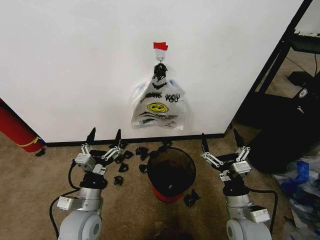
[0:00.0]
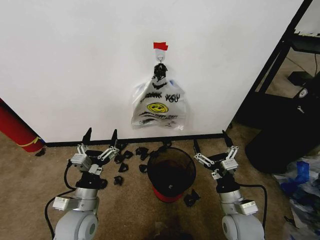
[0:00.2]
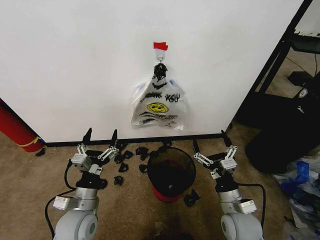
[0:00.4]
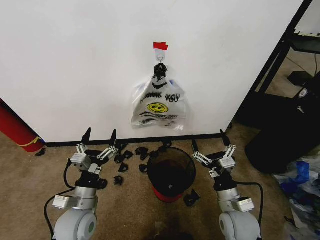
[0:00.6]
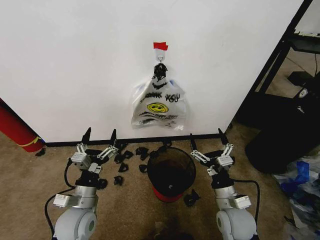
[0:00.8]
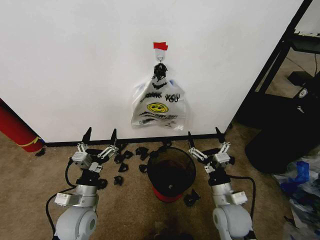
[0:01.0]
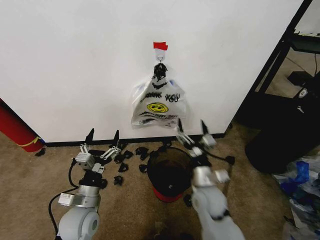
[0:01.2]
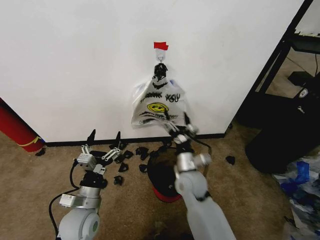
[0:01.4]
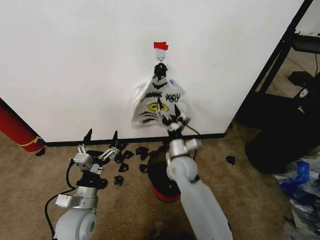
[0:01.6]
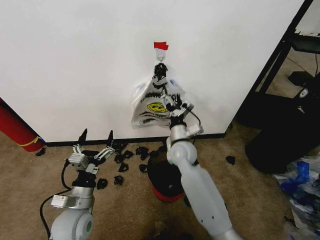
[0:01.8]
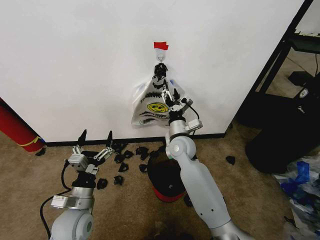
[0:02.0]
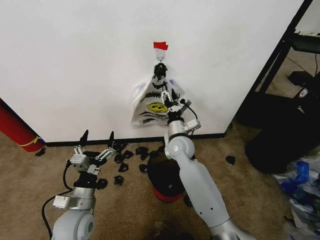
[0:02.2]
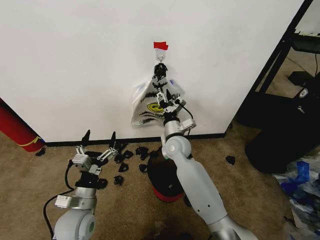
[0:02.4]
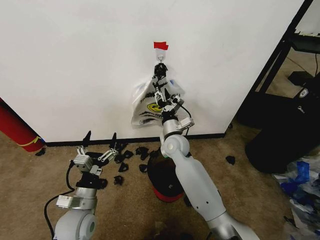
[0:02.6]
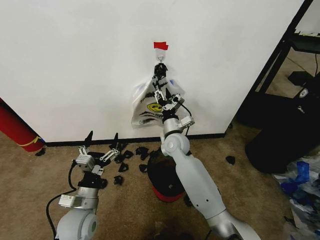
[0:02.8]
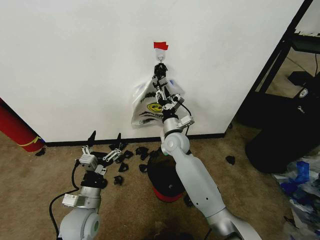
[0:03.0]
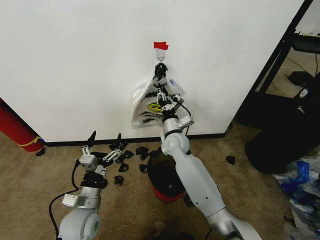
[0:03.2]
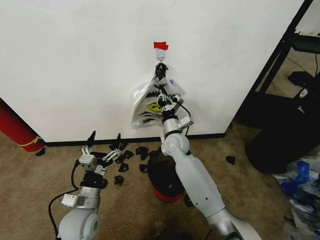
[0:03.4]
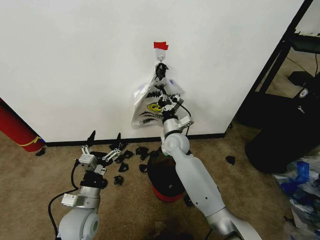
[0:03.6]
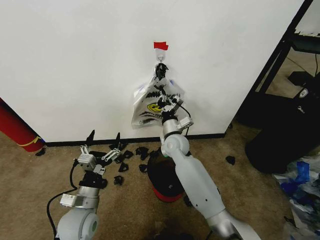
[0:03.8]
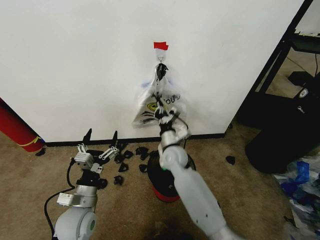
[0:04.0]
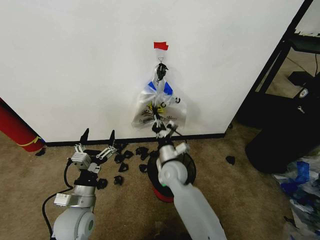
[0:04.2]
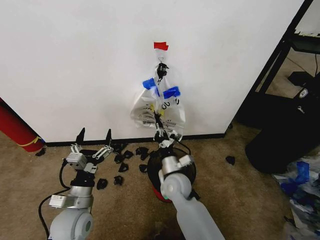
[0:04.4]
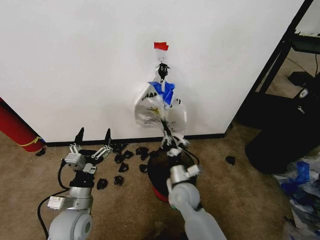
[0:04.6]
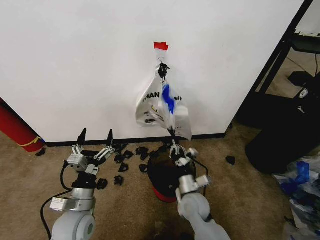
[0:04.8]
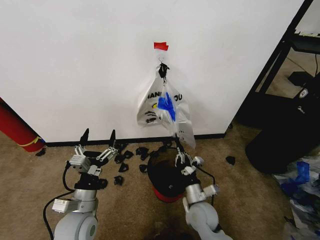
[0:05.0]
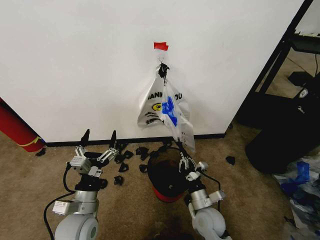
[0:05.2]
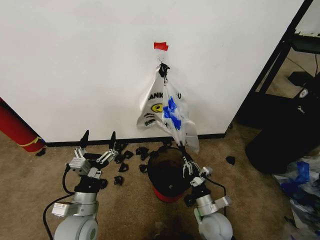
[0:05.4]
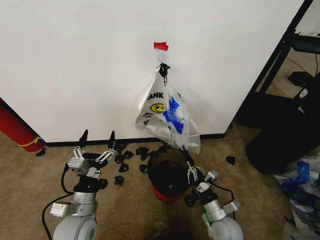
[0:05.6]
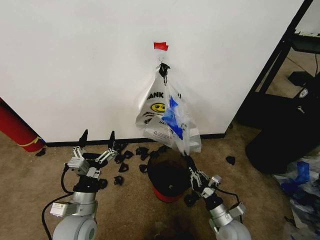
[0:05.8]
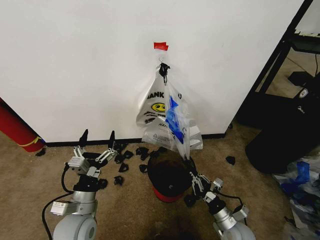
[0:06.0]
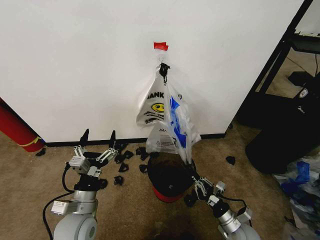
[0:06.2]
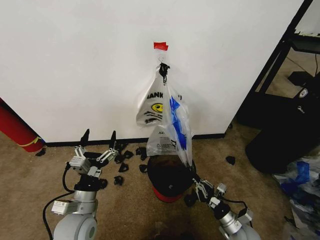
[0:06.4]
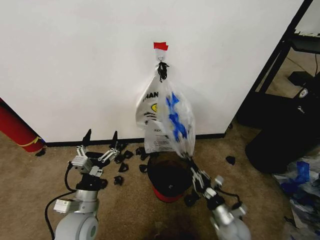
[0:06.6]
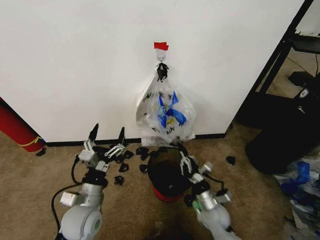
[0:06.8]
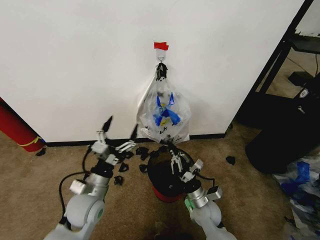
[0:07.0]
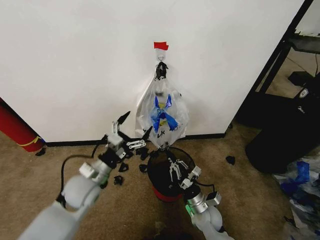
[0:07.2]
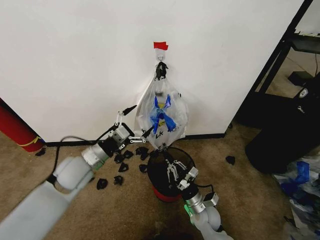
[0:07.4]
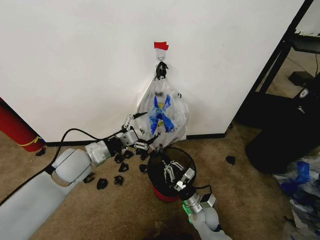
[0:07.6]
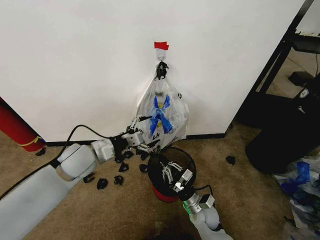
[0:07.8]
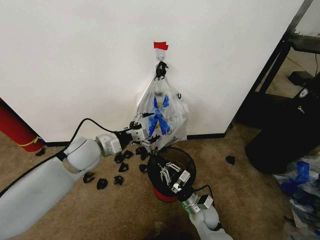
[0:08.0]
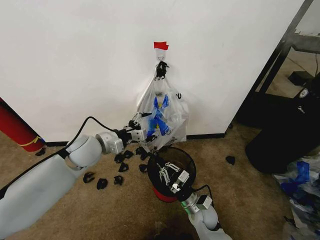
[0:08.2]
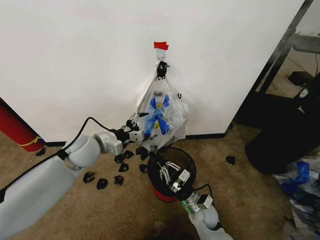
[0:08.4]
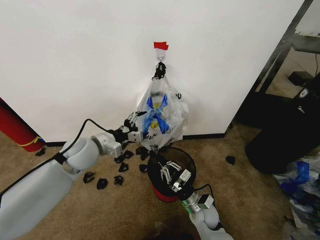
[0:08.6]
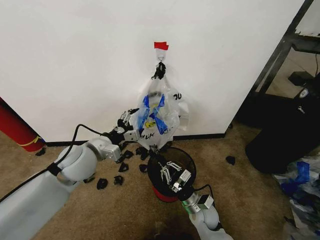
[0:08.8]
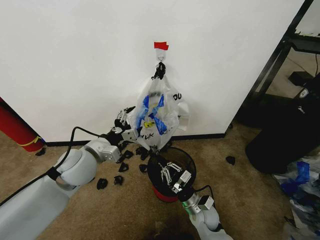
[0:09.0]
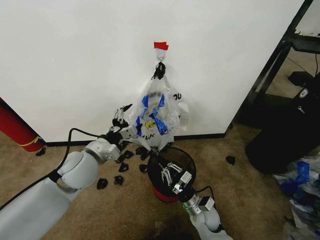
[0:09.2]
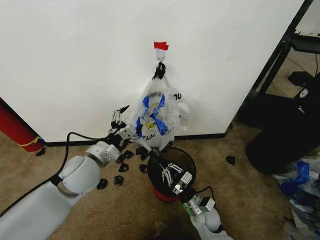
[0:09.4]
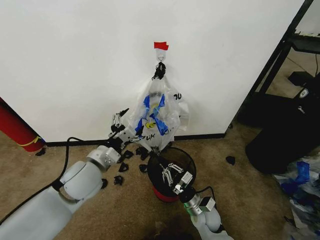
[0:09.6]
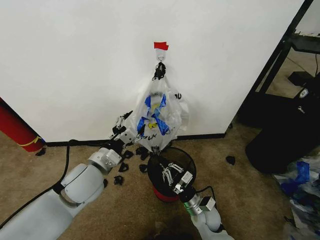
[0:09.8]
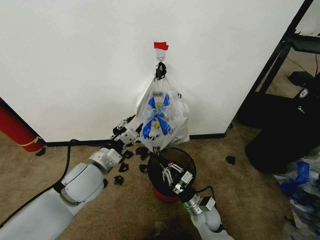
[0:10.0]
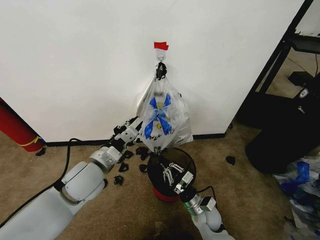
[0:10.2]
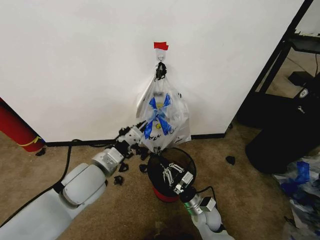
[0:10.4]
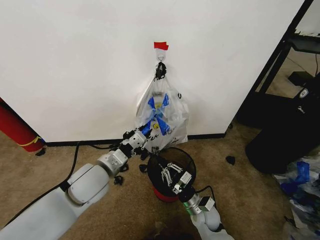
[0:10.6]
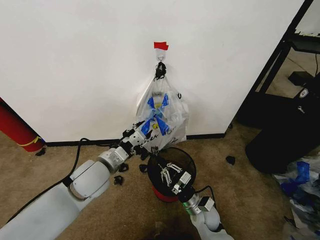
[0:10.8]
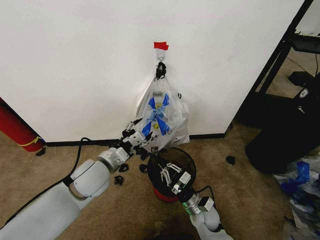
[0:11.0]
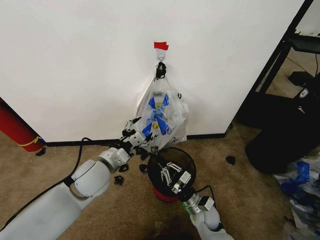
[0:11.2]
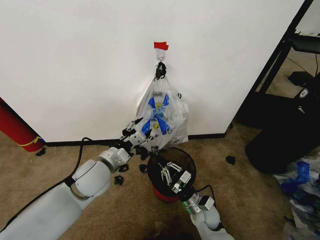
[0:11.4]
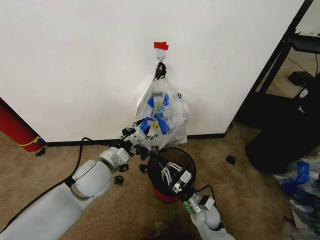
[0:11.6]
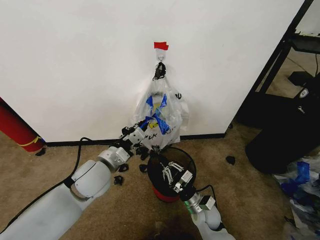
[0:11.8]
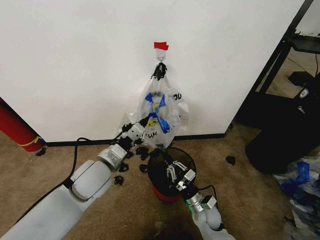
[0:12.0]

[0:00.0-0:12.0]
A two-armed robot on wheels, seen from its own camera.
Task of the whole recording: Pick up the garbage bag from the wall and place it over the trash bin.
0:01.6 to 0:03.0: The right gripper goes approximately 10 cm forward, and closes.
0:03.0 to 0:04.4: The right gripper travels backward and downward by approximately 15 cm, and closes.
0:04.4 to 0:06.0: The right gripper moves to the right, backward and downward, approximately 30 cm.
0:06.0 to 0:07.6: The left gripper shifts about 15 cm forward and upward. Meanwhile the right gripper heads to the left and forward, covering roughly 10 cm.
0:09.0 to 0:10.4: The left gripper ends up about 5 cm from where it was, and closes.
0:10.4 to 0:12.0: The left gripper opens, then closes again.

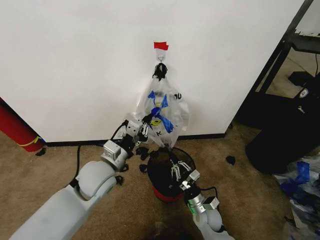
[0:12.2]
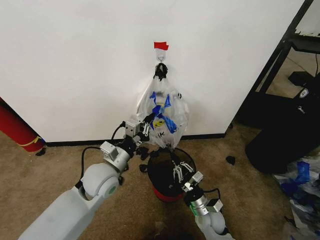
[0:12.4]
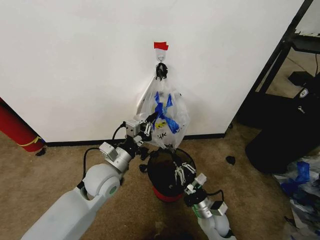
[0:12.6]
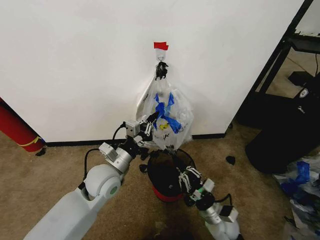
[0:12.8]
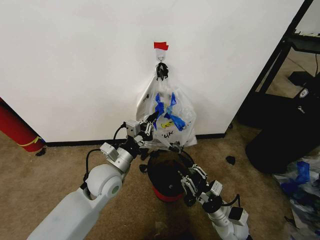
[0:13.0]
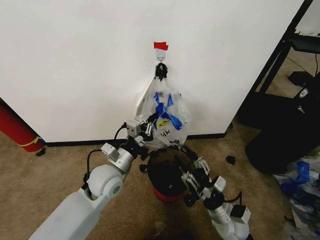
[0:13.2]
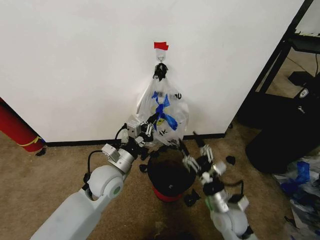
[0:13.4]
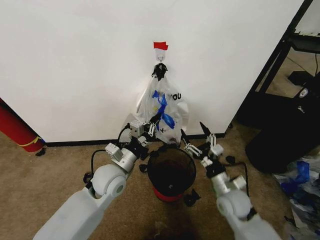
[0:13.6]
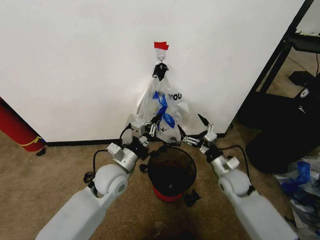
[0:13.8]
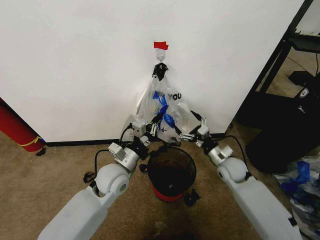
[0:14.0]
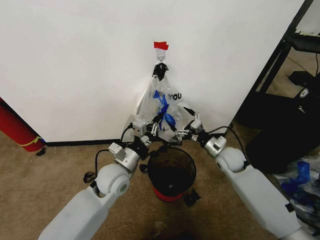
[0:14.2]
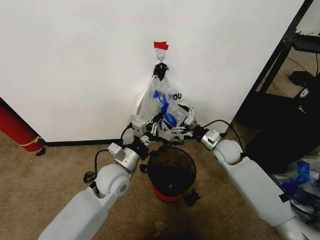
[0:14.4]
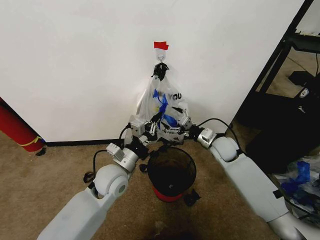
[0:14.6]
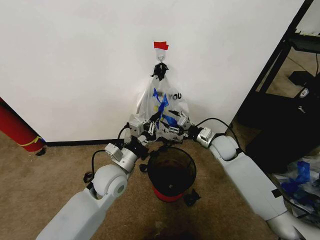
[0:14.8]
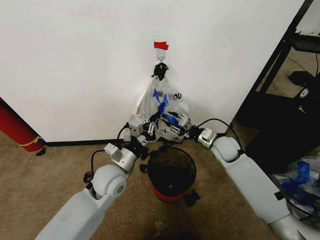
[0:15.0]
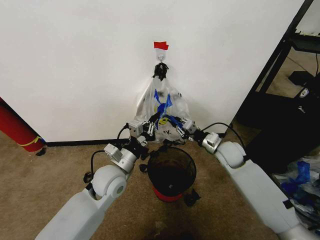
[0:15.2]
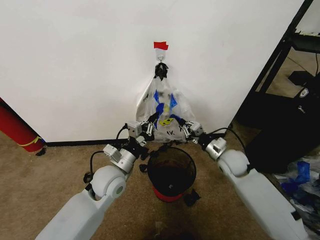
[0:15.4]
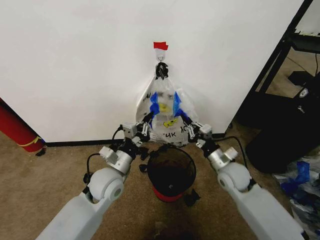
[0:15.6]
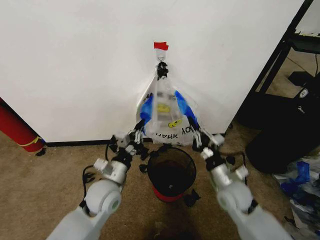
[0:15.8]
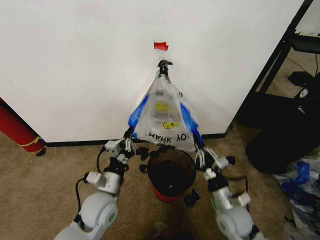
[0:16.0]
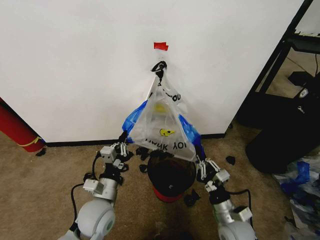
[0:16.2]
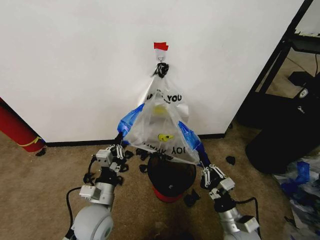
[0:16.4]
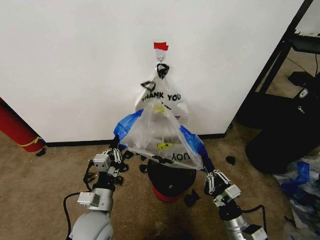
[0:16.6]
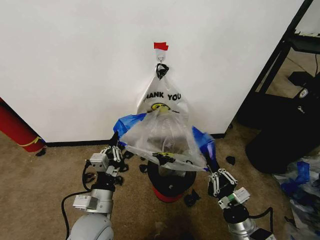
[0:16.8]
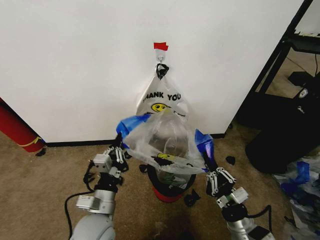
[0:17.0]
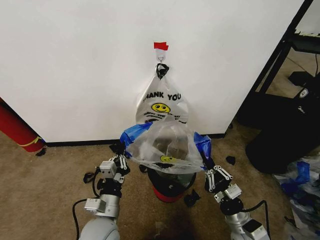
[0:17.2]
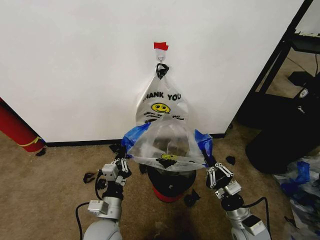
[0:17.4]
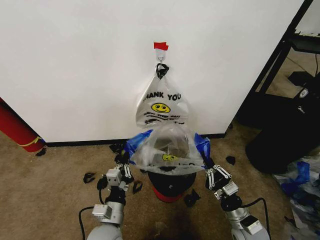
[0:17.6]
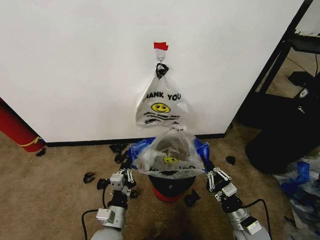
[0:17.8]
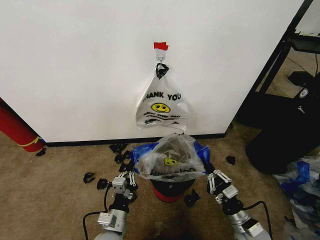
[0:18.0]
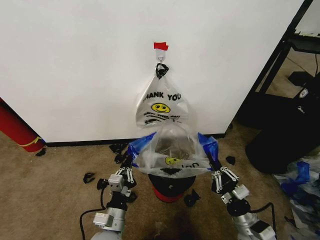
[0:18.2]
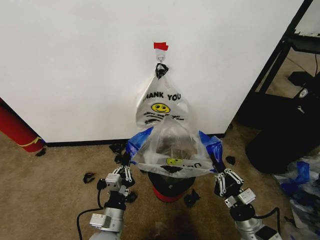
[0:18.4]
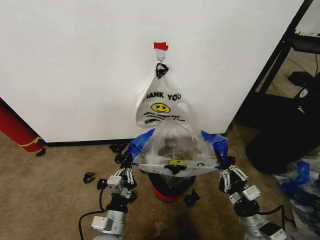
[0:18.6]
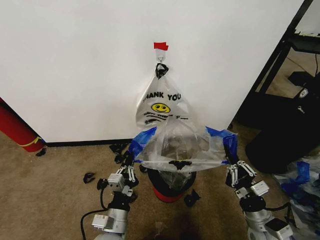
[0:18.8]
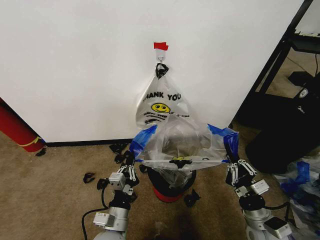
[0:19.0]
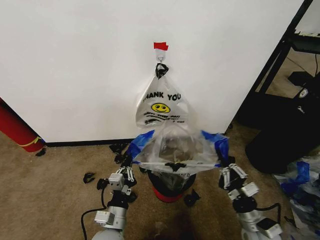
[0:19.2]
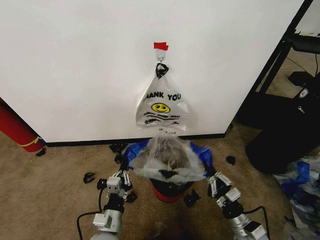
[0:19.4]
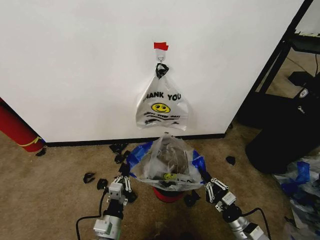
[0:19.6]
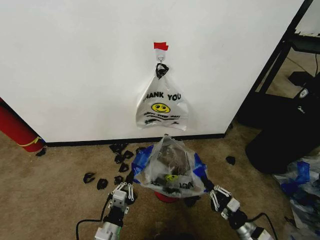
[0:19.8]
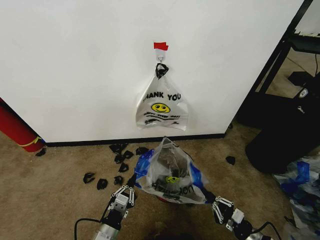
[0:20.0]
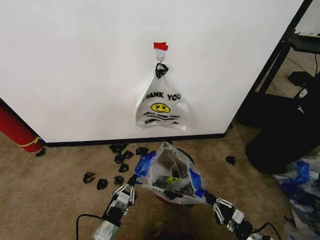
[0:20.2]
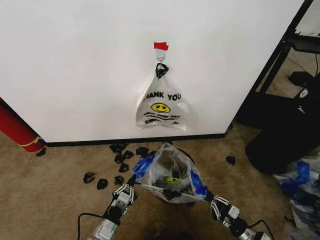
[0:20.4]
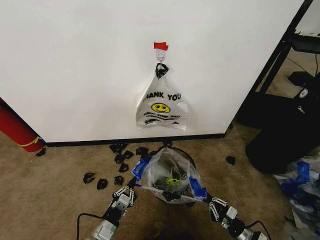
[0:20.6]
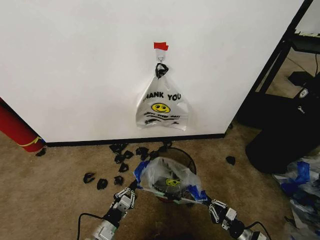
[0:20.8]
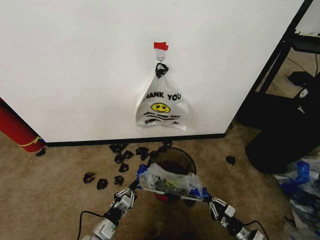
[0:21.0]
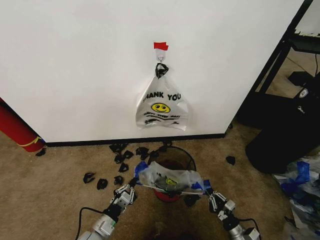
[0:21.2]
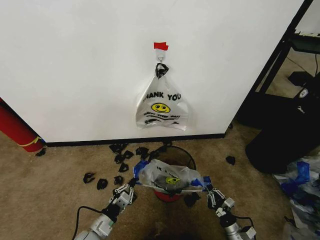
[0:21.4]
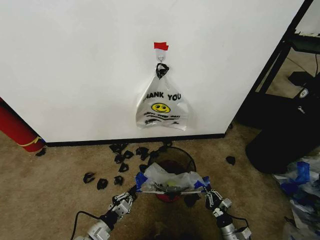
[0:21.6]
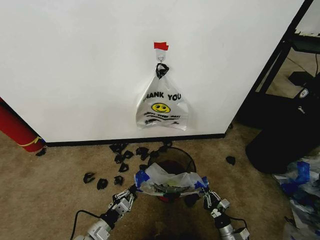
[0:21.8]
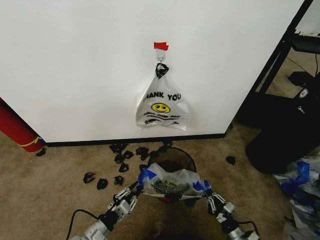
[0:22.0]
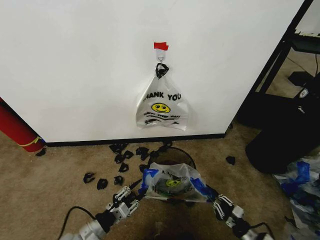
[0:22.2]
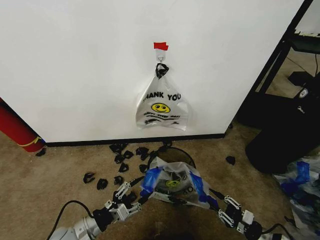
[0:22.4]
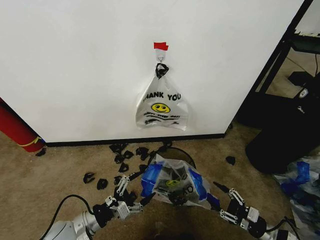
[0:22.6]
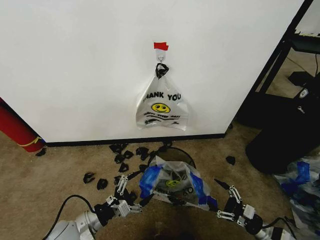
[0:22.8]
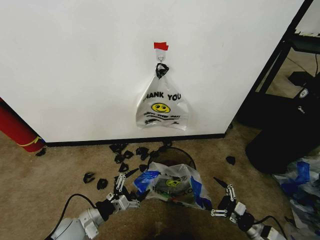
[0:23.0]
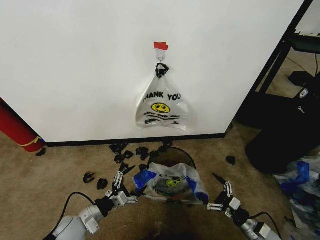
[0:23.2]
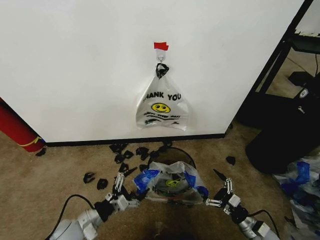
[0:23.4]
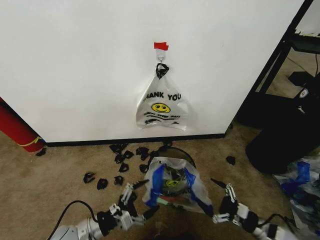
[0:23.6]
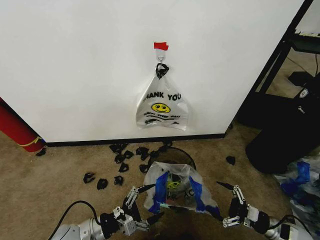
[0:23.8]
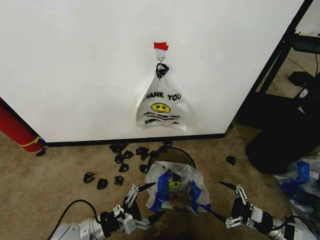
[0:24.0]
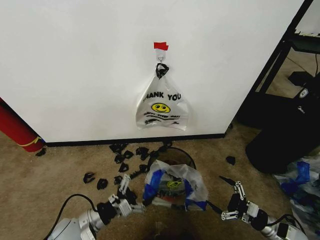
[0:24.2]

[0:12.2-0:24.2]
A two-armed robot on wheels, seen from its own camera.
Task of the whole recording: Pick up the garbage bag from the wall and place it over the trash bin.
0:12.2 to 0:13.8: The right gripper shifts approximately 15 cm upward, to the right and forward, and opens its fingers. Meanwhile the left gripper changes place by approximately 5 cm.
0:13.8 to 0:15.2: The right gripper travels forward and upward by some 10 cm, and closes.
0:15.2 to 0:16.6: The left gripper is displaced backward by some 10 cm, while the right gripper heads backward, covering approximately 30 cm.
0:16.6 to 0:18.2: The left gripper moves downward, approximately 5 cm.
0:18.2 to 0:19.8: The left gripper changes place by about 5 cm. The right gripper is displaced downward and to the right by some 10 cm.
0:19.8 to 0:21.2: The left gripper travels to the left and downward by roughly 10 cm. The right gripper goes roughly 10 cm downward.
0:21.2 to 0:22.6: The right gripper travels upward and to the right by roughly 15 cm, and opens; the left gripper is displaced upward by approximately 10 cm, and opens.
0:22.6 to 0:24.2: The right gripper moves roughly 5 cm downward and comes back, and opens.
